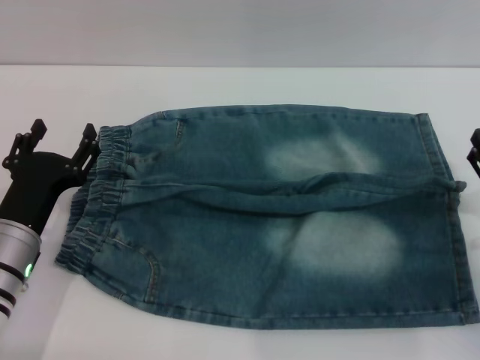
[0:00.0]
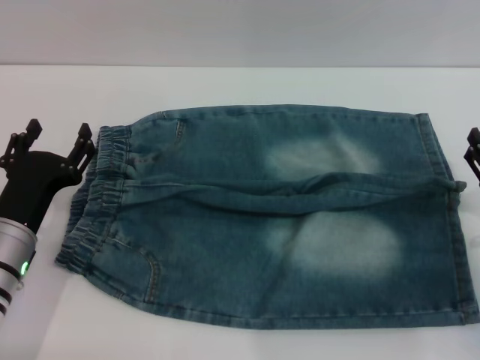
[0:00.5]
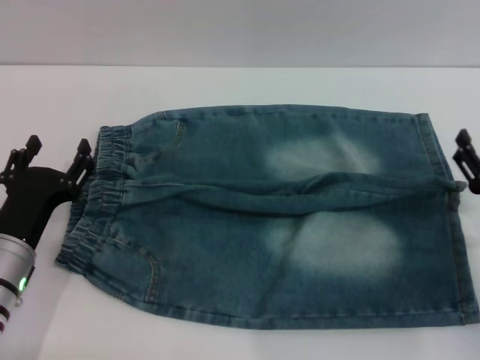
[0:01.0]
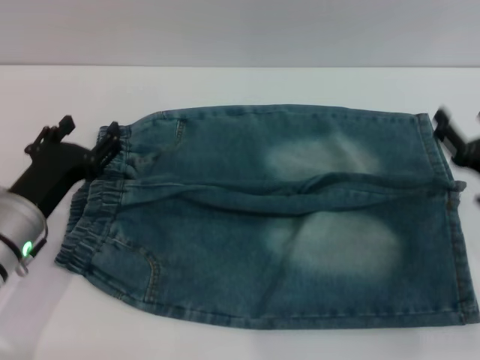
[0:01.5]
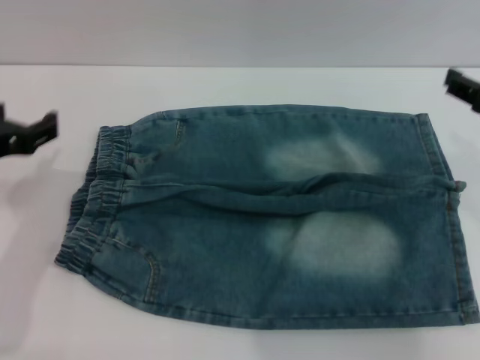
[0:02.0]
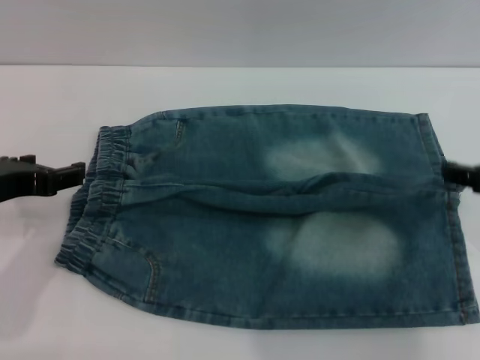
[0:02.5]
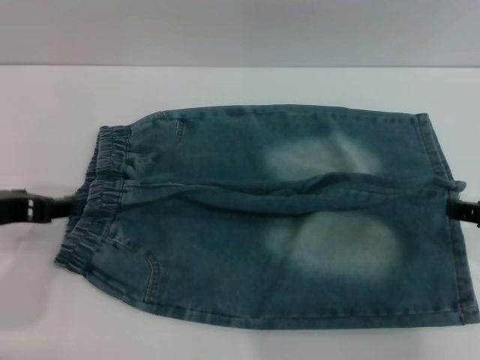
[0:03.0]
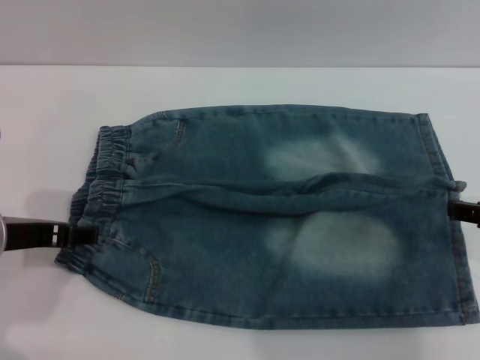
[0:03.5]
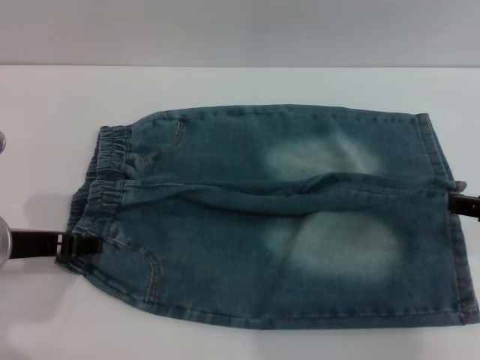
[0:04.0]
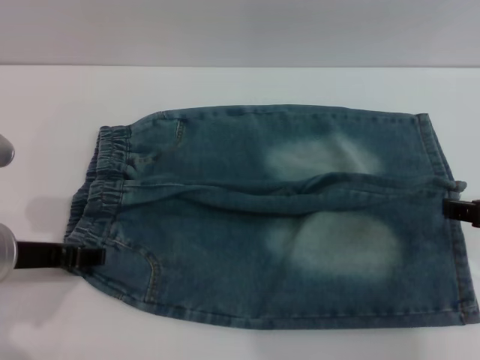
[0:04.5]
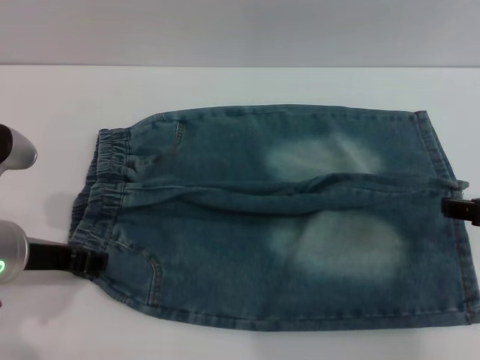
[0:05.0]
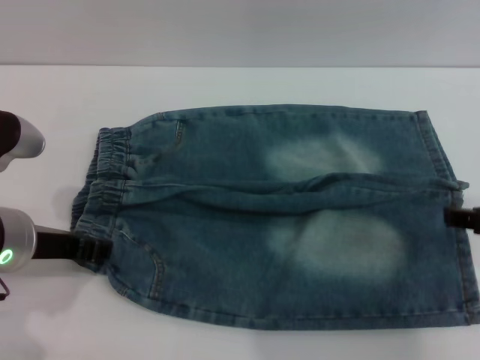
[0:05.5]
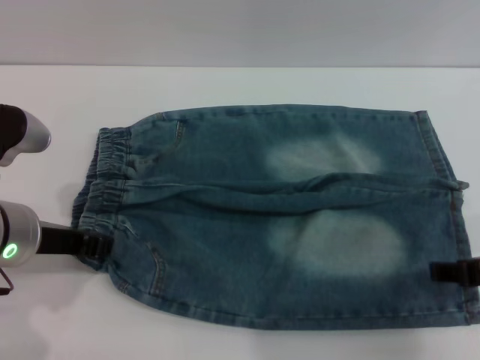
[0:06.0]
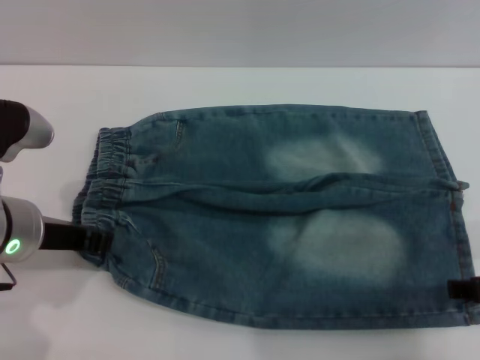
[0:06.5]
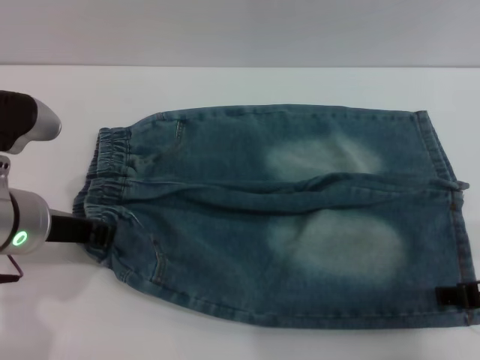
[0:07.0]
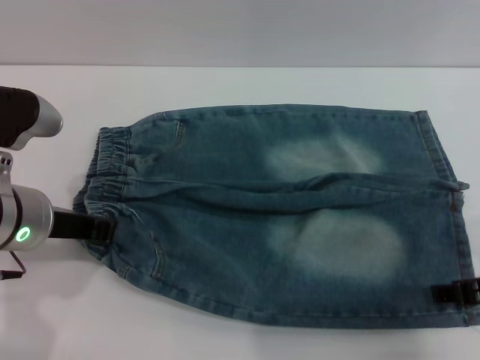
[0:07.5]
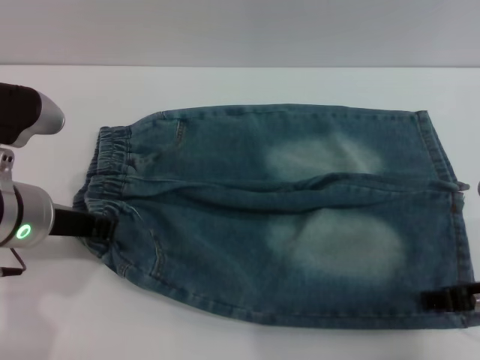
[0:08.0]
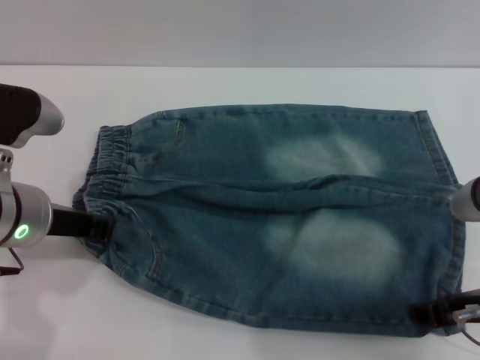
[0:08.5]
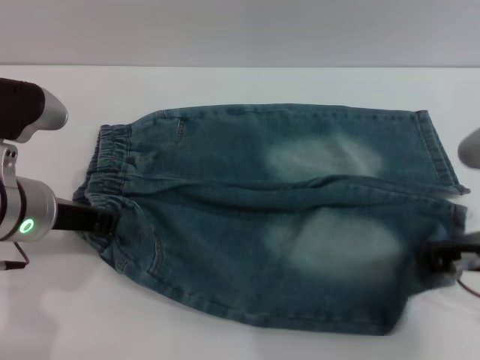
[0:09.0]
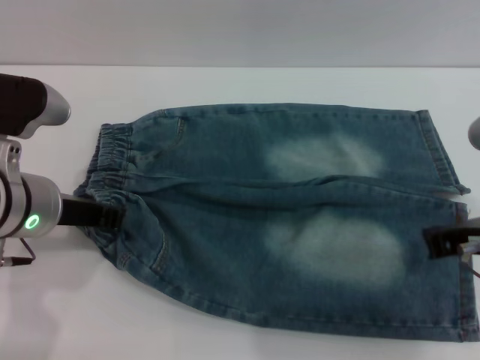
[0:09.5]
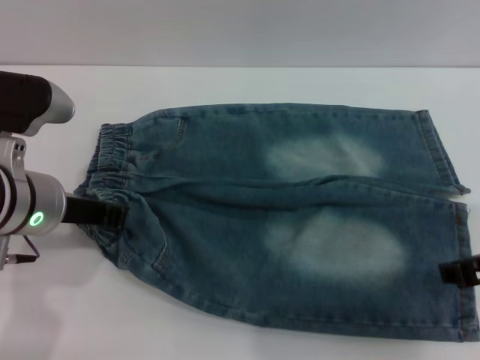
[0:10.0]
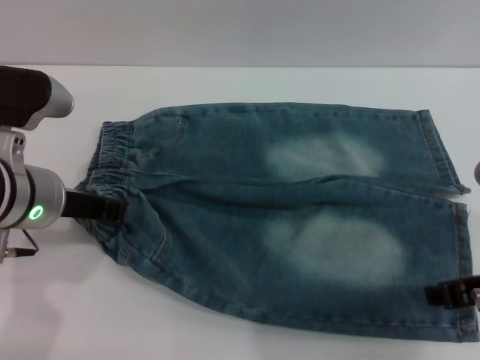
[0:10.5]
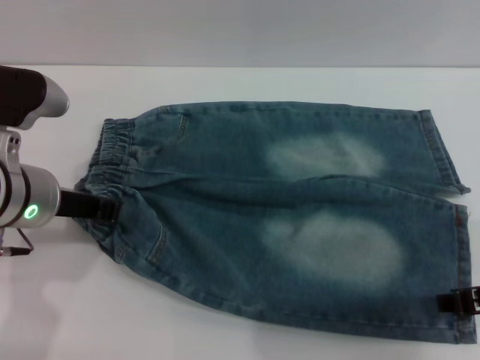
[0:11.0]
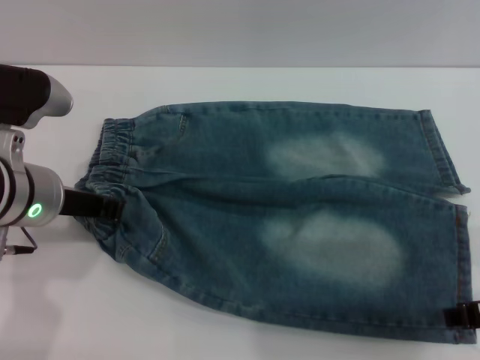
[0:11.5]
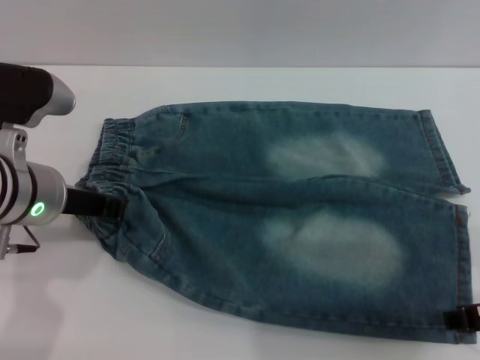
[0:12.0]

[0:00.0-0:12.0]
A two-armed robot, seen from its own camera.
0:00.0 to 0:02.0: Both grippers travel together upward, roughly 15 cm.
0:04.0 to 0:06.0: The left gripper closes up.
0:06.0 to 0:08.0: The left gripper closes up.
0:08.0 to 0:10.0: The right gripper closes up.
0:10.0 to 0:12.0: The grippers make only small movements.

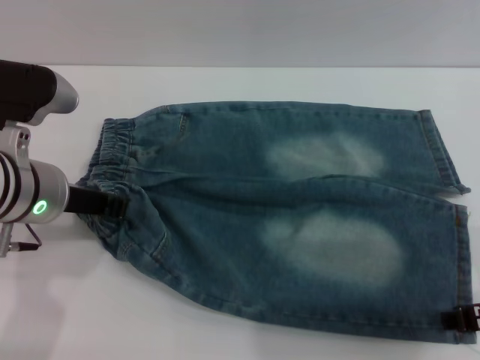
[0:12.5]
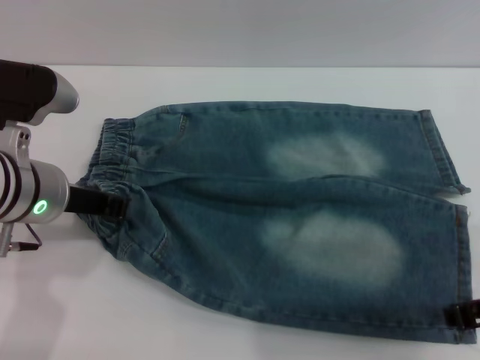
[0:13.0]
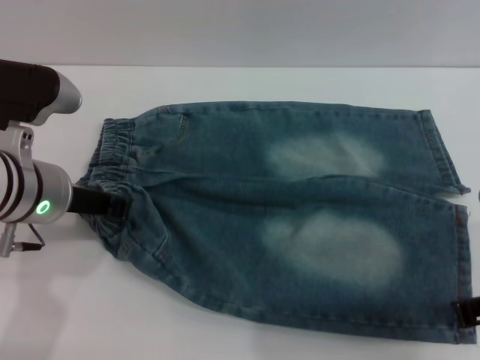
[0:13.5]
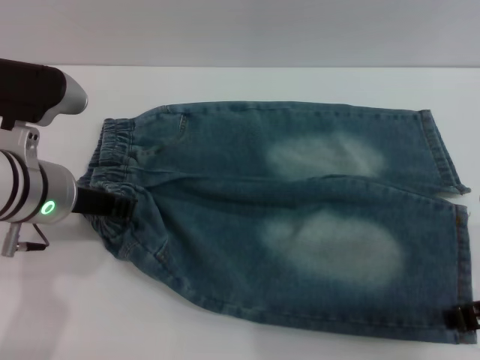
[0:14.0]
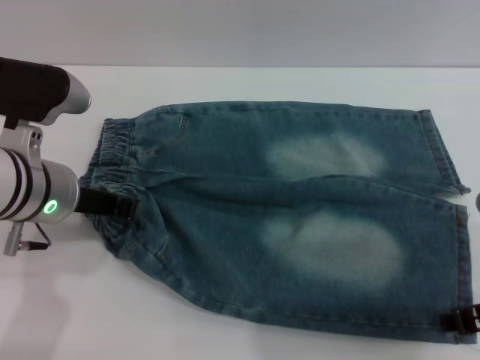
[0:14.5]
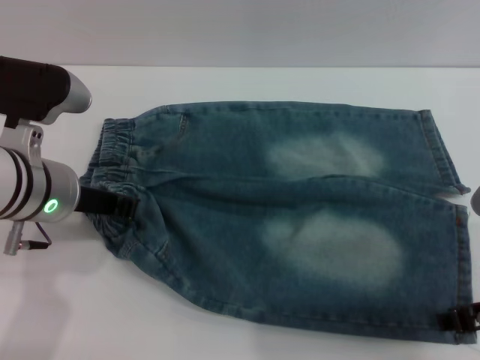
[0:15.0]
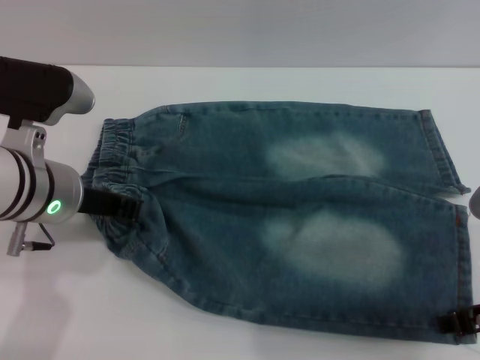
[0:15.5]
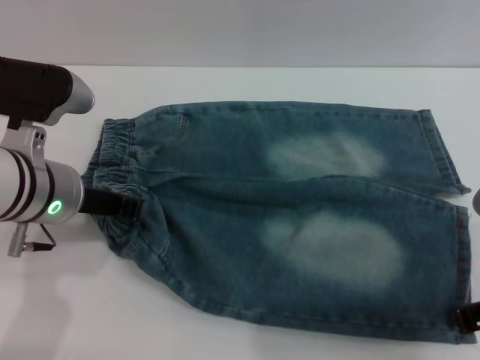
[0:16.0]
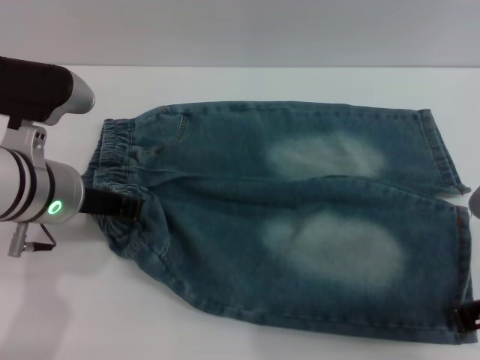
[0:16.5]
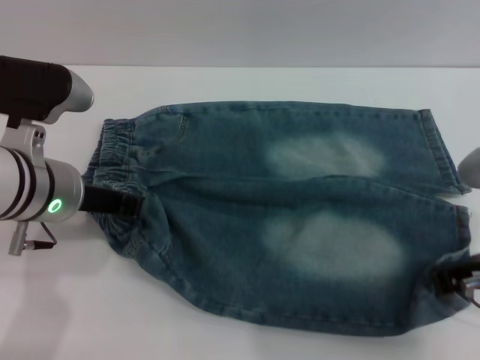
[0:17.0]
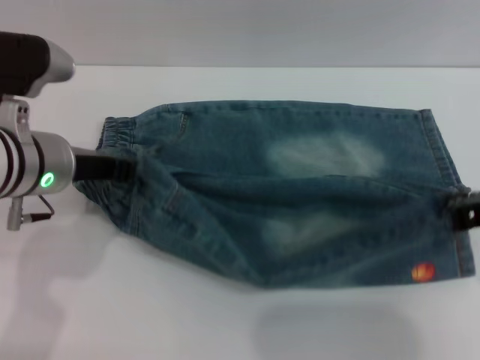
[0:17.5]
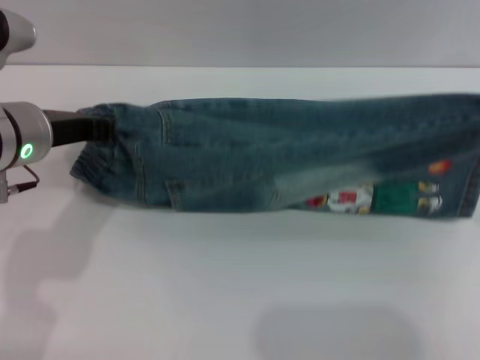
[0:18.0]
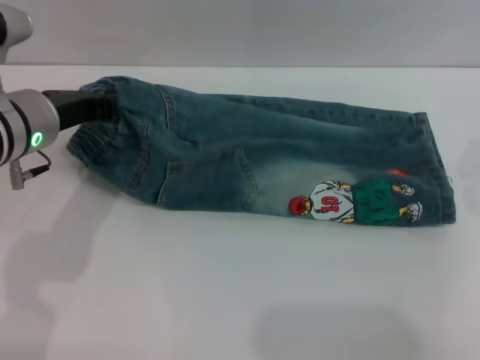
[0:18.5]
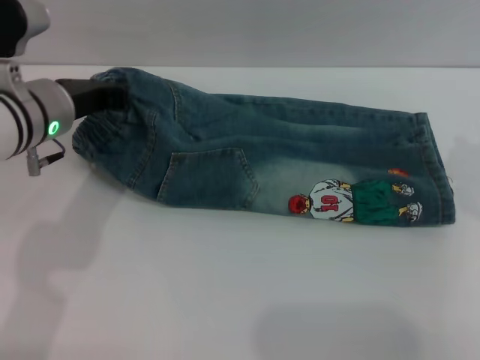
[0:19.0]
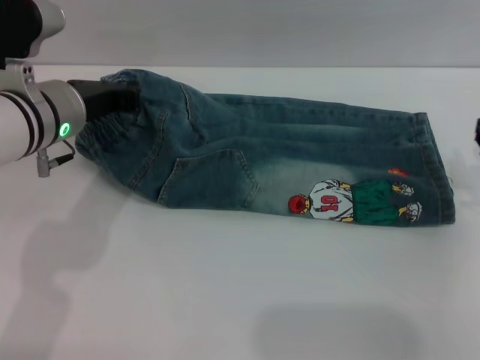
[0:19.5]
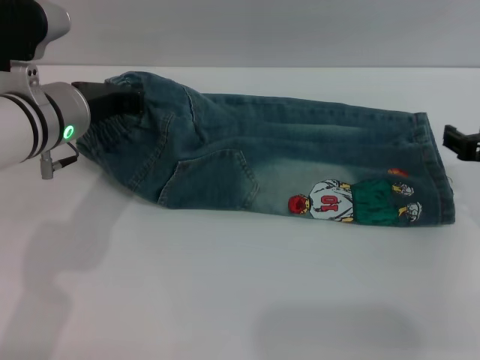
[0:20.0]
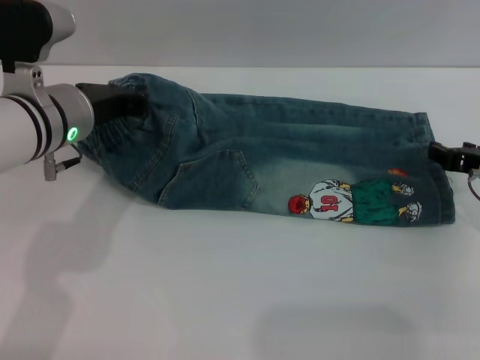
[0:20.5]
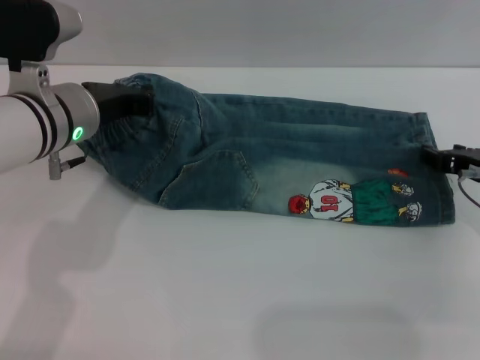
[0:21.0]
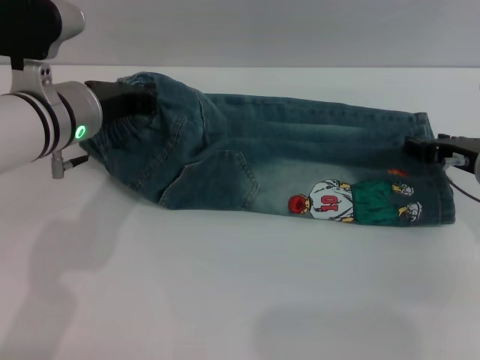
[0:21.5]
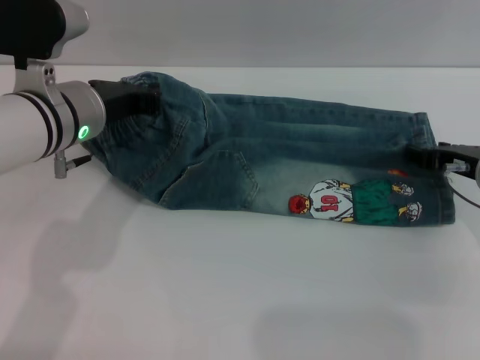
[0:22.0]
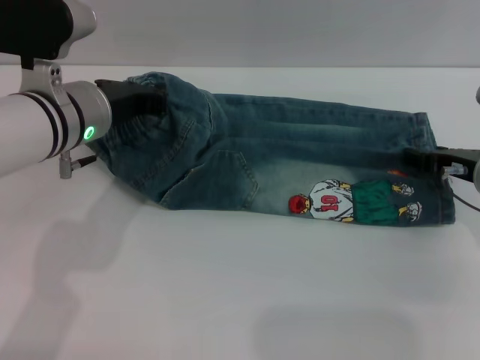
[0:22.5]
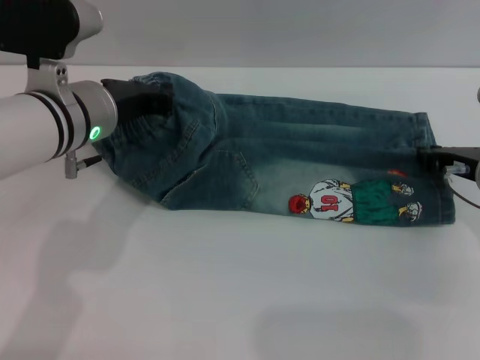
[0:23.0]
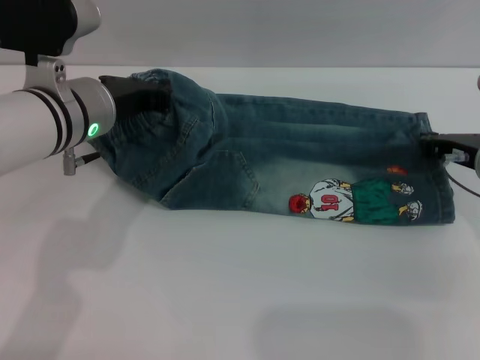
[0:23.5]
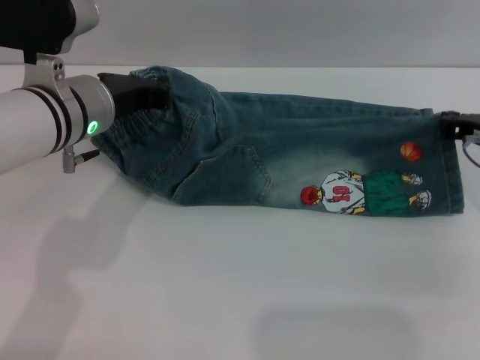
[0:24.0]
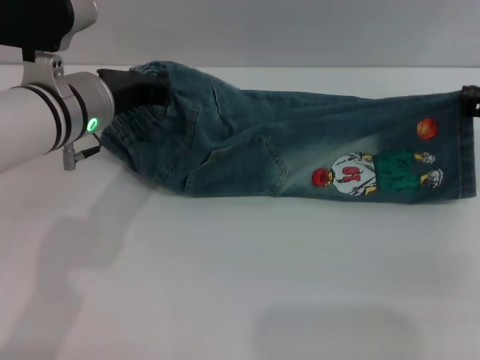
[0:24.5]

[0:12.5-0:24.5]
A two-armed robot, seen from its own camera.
Step, 0:12.5 to 0:20.0: Fold the bottom of the pants upward with both grippers.
0:14.5 to 0:16.5: The right gripper closes up.
0:16.5 to 0:18.5: The right gripper is displaced forward and to the right by about 10 cm.
0:18.5 to 0:20.5: The right gripper shifts some 10 cm downward, and opens up.
0:20.5 to 0:22.5: The grippers move only a little.
0:22.5 to 0:24.5: The right gripper changes place by about 5 cm, and closes.

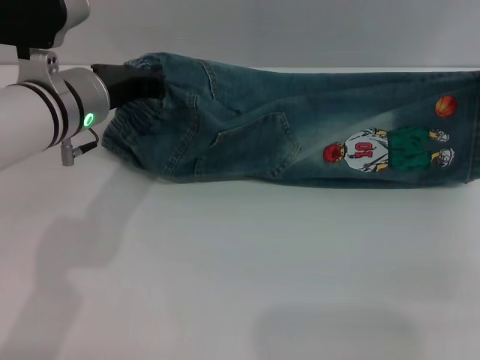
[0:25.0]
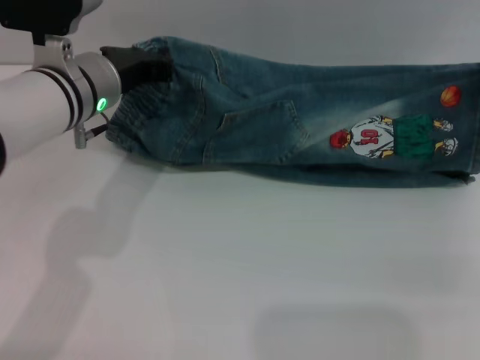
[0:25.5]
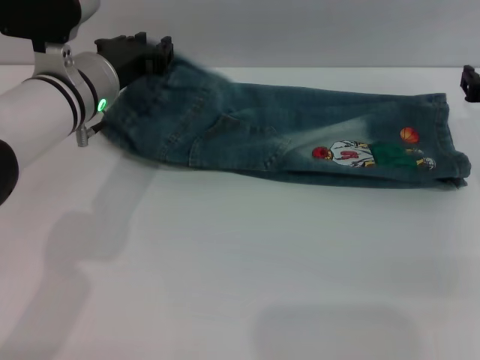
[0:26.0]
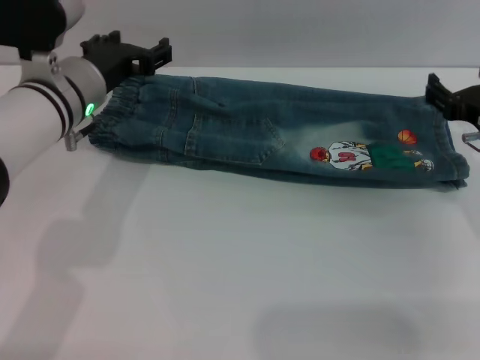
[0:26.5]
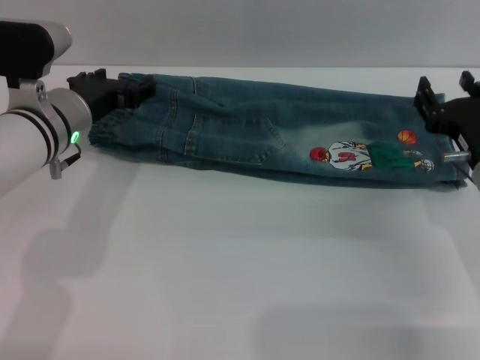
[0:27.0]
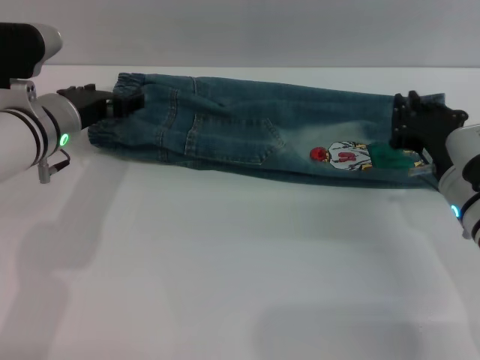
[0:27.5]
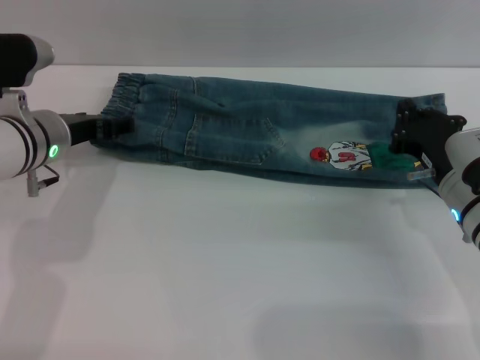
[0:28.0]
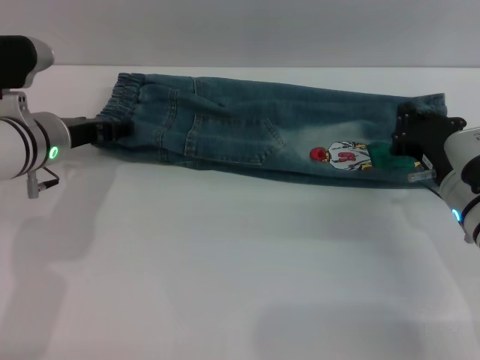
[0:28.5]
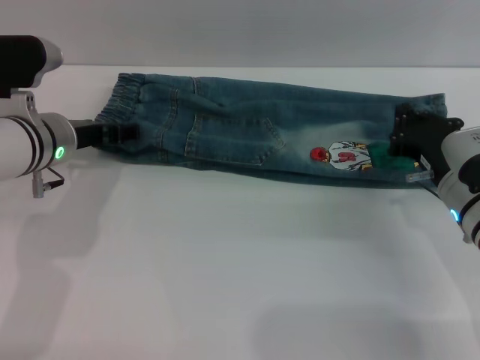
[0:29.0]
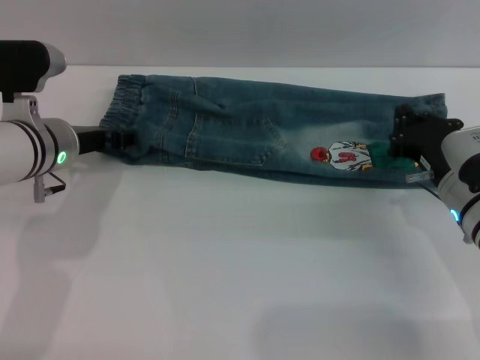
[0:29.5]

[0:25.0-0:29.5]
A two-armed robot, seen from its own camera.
0:25.0 to 0:27.0: The right gripper goes roughly 10 cm downward and to the left, and opens; the left gripper opens its fingers.
0:27.0 to 0:29.5: The right gripper closes up.
